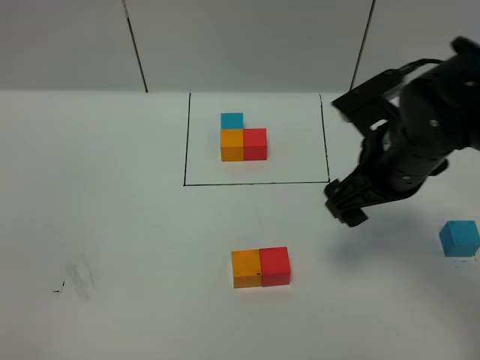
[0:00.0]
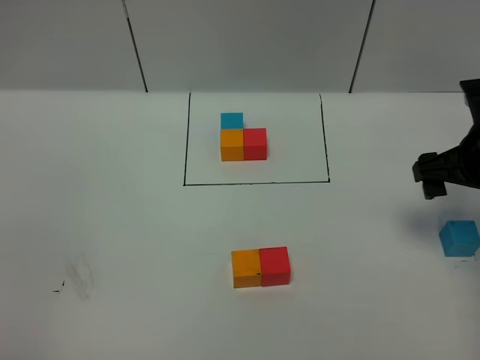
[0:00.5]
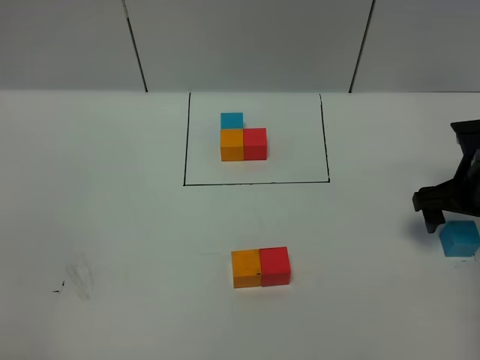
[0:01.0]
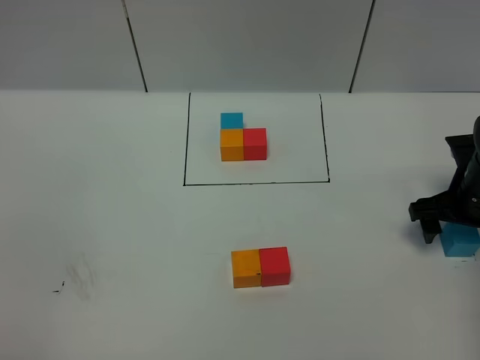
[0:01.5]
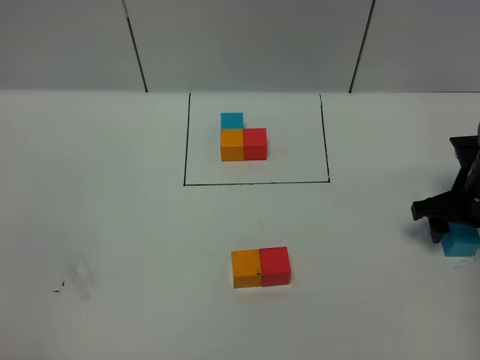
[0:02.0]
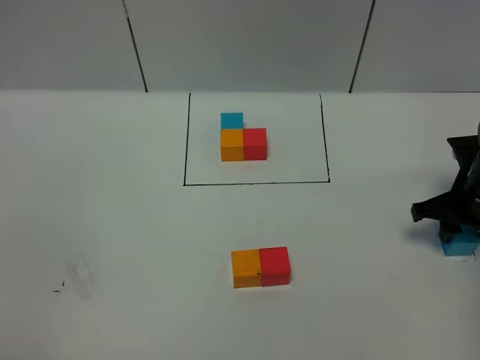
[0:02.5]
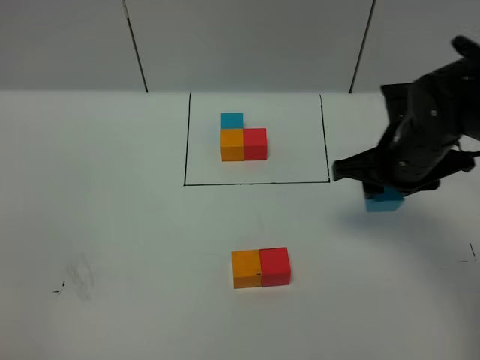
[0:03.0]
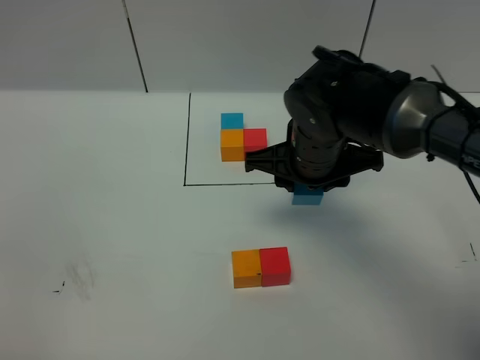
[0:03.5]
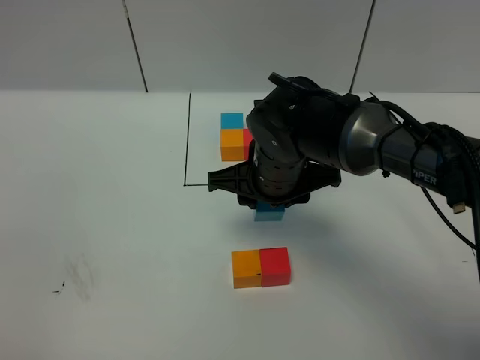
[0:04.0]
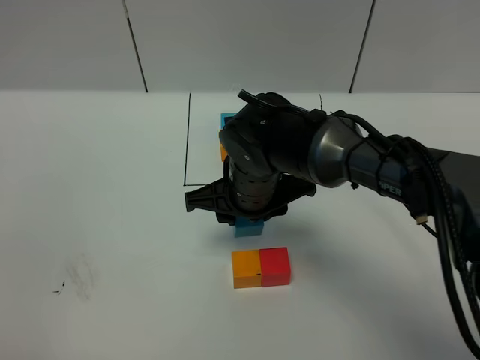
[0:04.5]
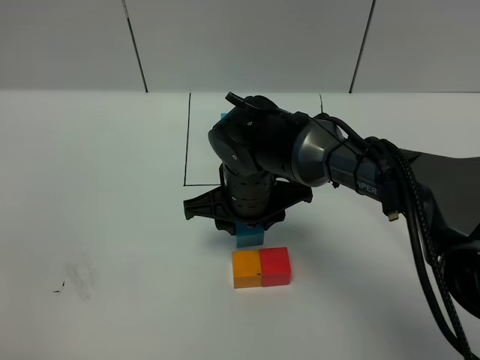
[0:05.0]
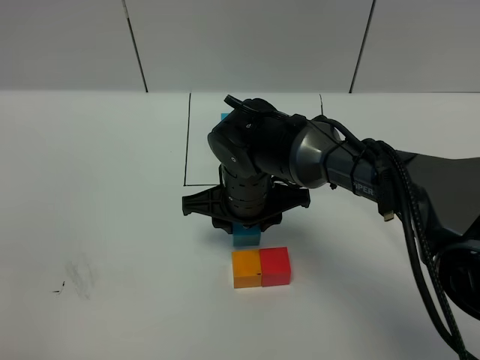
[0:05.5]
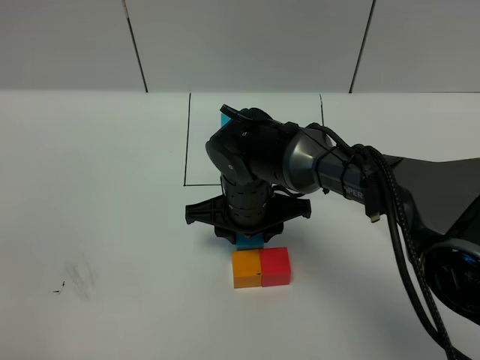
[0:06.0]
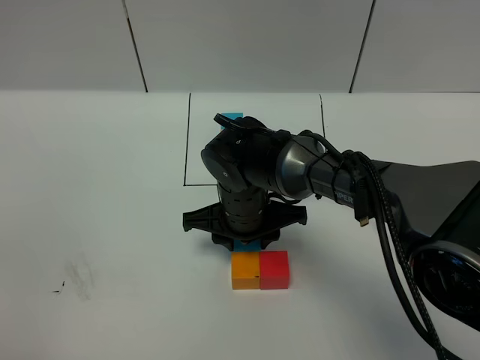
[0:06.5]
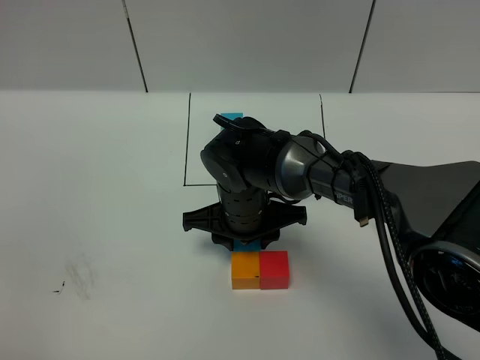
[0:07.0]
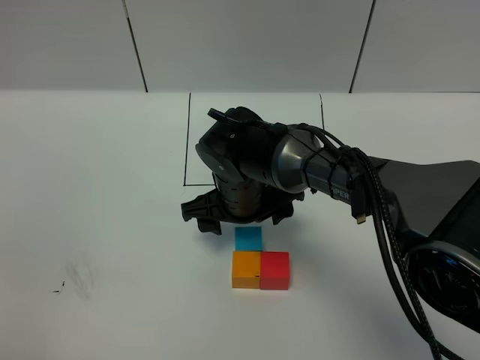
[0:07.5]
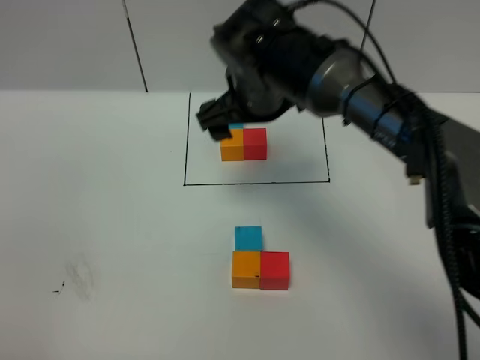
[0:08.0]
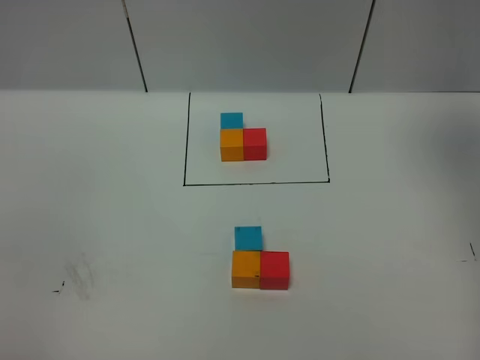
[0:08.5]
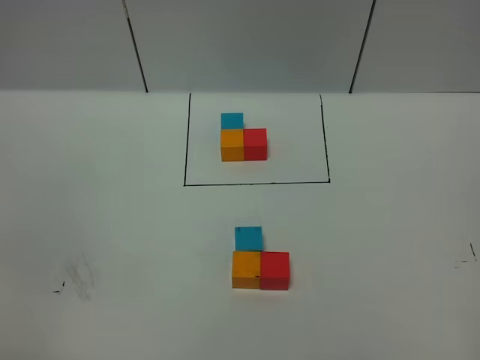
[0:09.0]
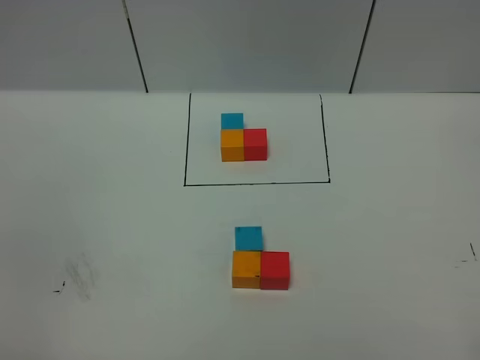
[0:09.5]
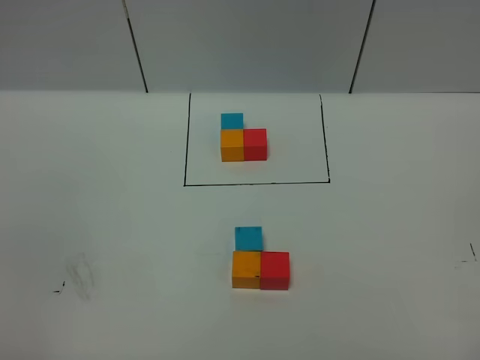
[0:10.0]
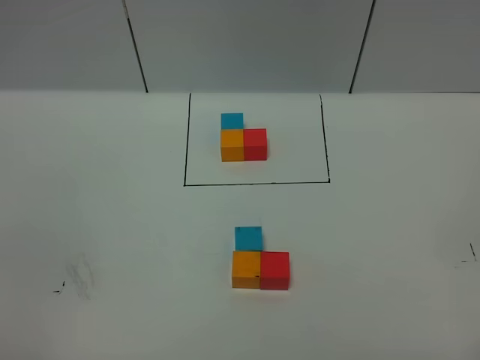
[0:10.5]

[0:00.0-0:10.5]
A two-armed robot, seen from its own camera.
Task of the whole recording: According to the building block template in front, assemble the scattered blocks together.
Step, 0:00.0 to 0:07.0: Put the blue cube on the behind of the orange cube.
0:00.0 to 0:02.0: The right gripper is displaced to the right and downward by roughly 20 cm, and closes.
0:02.0 to 0:04.0: The right gripper is displaced to the left by about 25 cm, and closes up.
0:04.0 to 0:06.5: The right gripper shifts about 5 cm downward.
0:06.5 to 0:08.5: The right gripper heads upward and to the right, covering some 50 cm, and opens up.
0:08.5 to 0:10.5: The right gripper heads backward and downward, covering approximately 40 cm.
